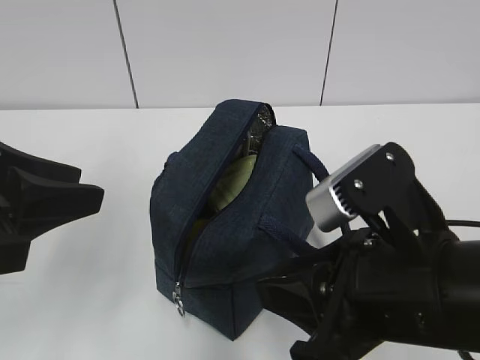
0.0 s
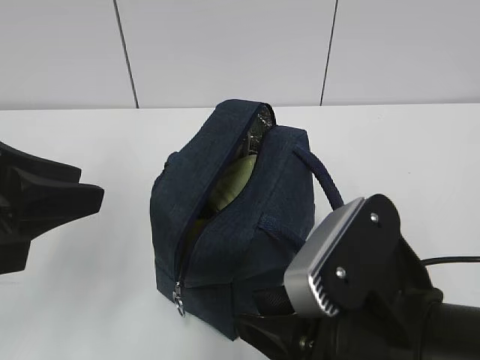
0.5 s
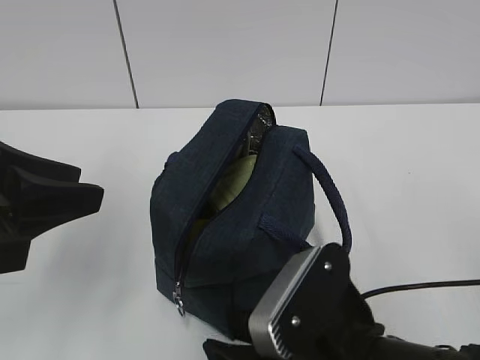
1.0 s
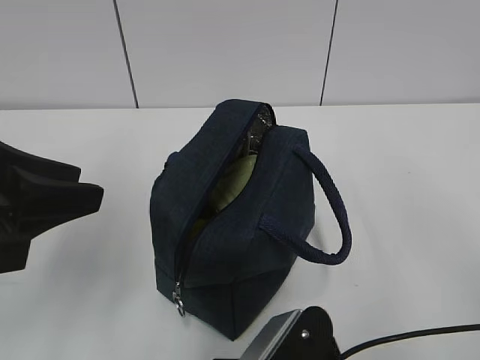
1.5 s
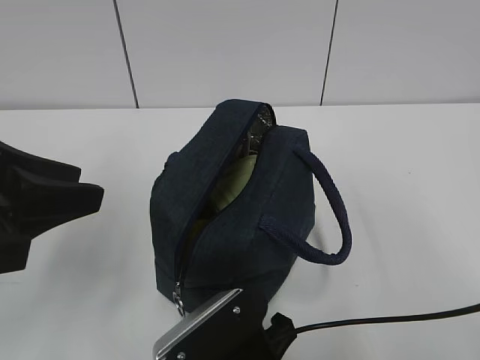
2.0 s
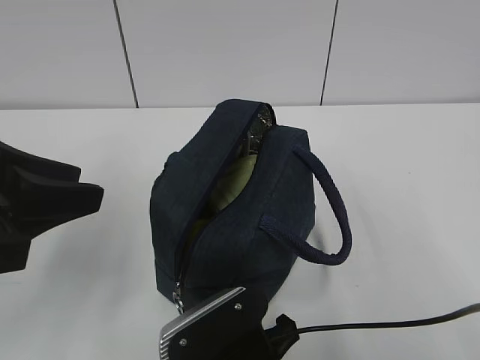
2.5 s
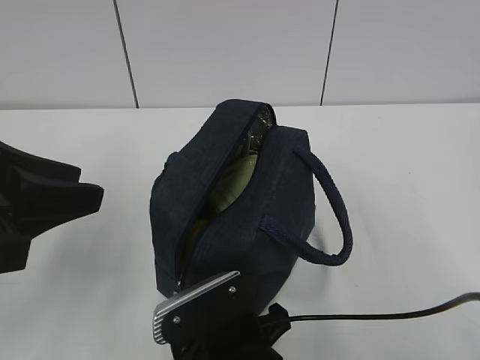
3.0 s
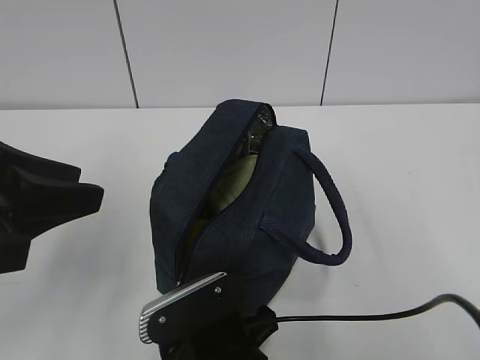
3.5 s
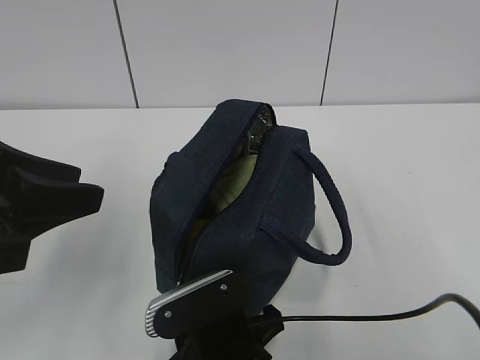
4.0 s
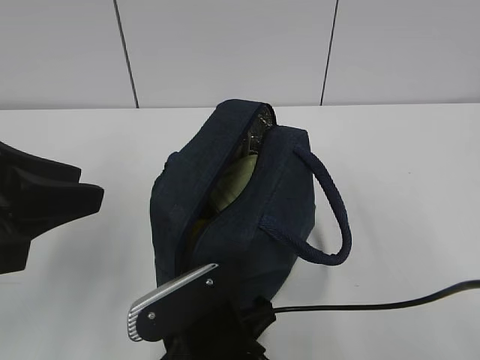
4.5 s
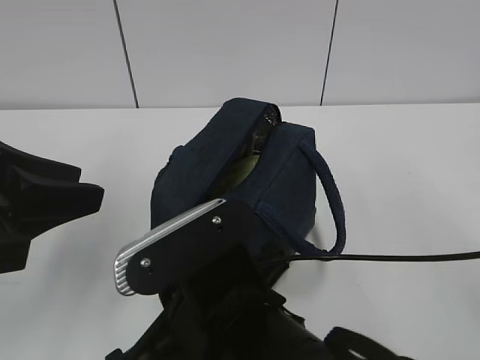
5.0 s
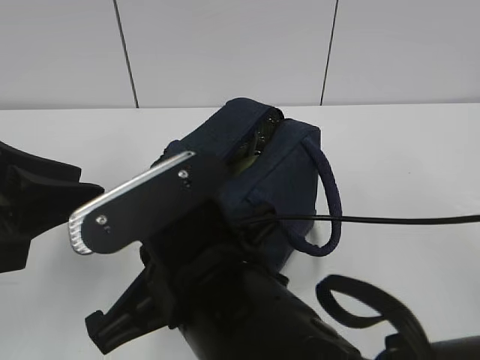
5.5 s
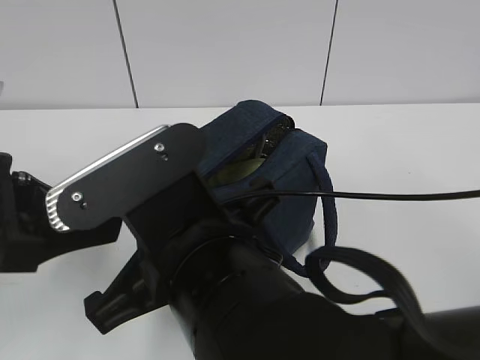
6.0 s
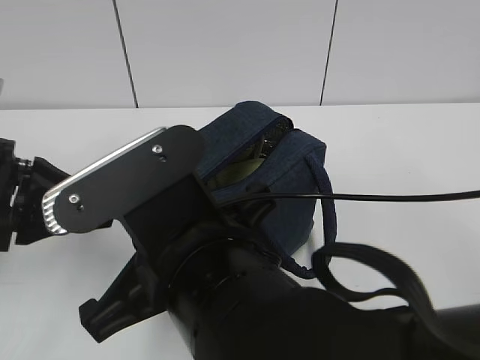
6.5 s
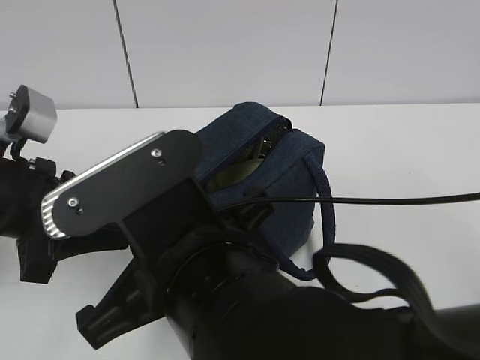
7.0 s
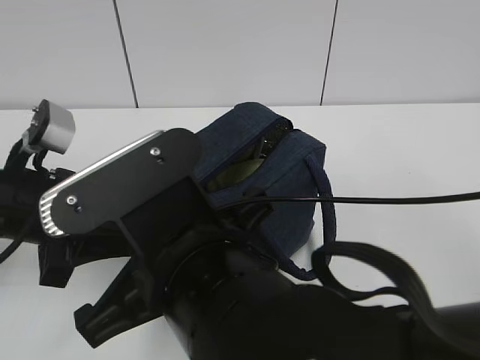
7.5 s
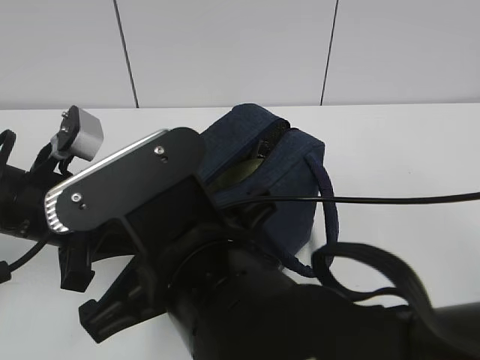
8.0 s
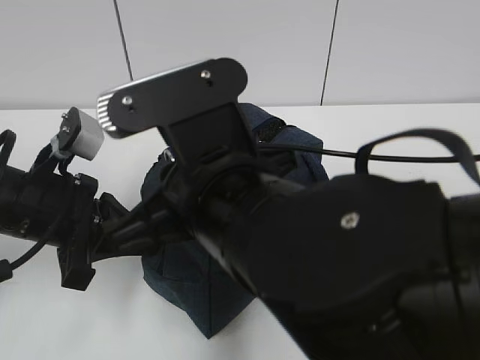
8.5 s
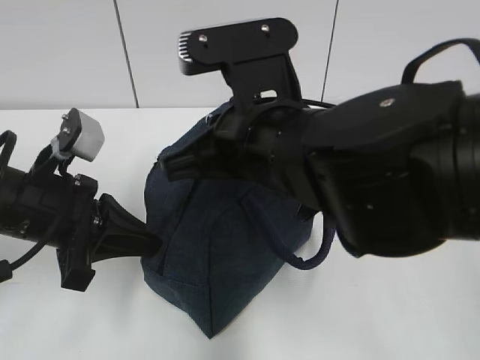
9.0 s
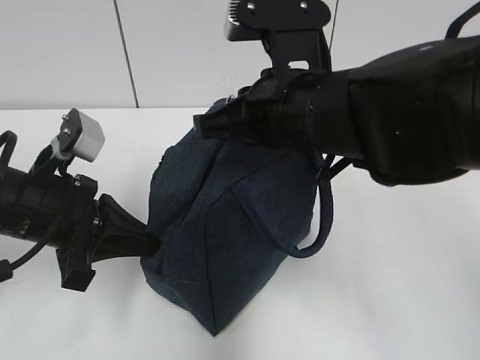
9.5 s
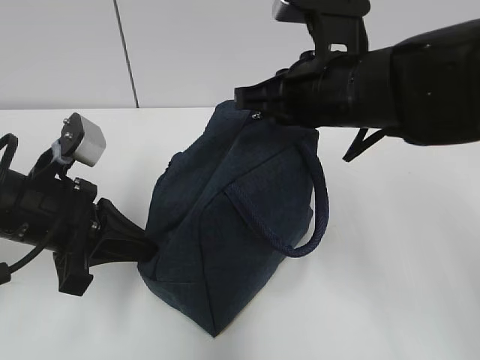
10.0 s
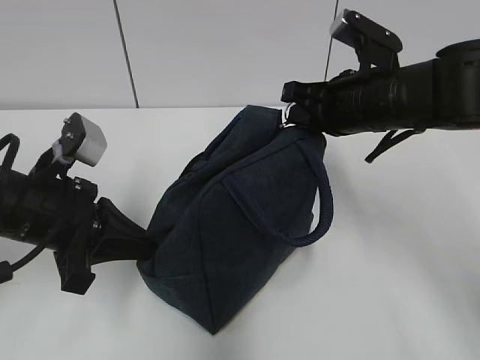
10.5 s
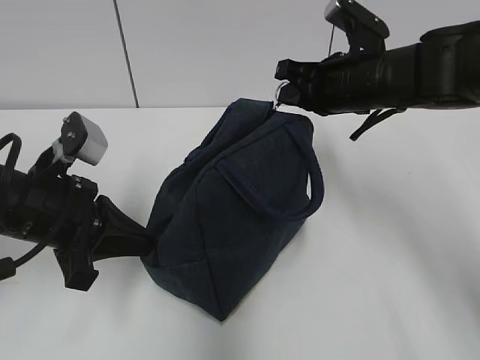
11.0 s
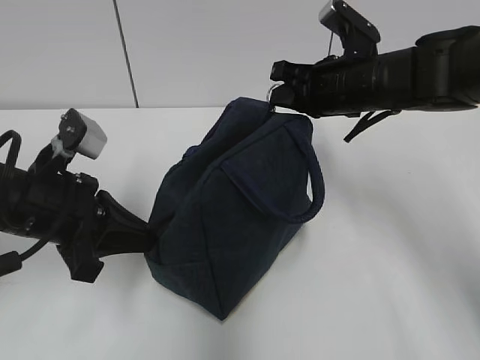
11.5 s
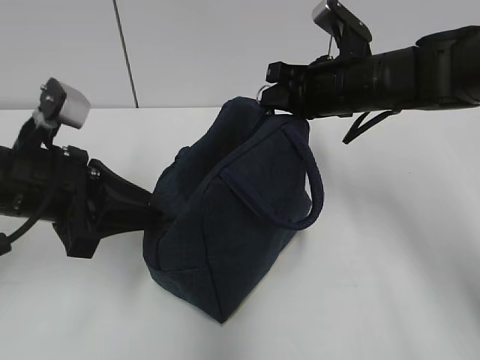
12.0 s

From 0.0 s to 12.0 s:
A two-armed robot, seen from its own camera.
Step, from 0.0 s to 7.5 s: Grab the lunch bag with your left hand.
From 0.0 s to 2.0 s: The right gripper shifts approximately 15 cm downward and to the left.
From 2.0 s to 4.0 s: The grippers move only a little.
From 4.0 s to 6.0 s: The right gripper moves upward, about 15 cm.
From 6.0 s to 8.0 s: The left gripper goes some 10 cm forward and downward, and closes up.
From 8.0 s to 10.0 s: The right gripper heads forward and to the right, covering roughly 20 cm.
From 10.0 s to 12.0 s: The left gripper opens; the right gripper travels forward by roughly 10 cm.

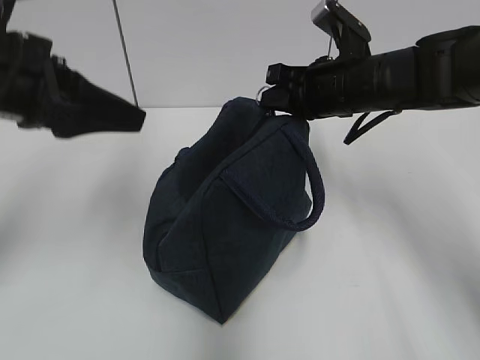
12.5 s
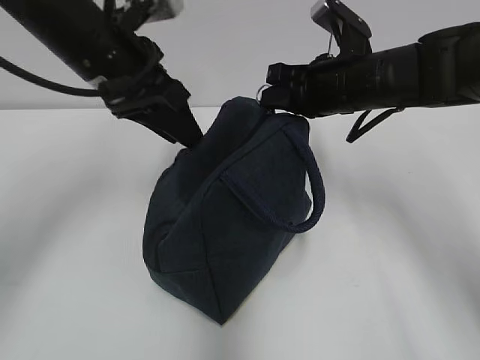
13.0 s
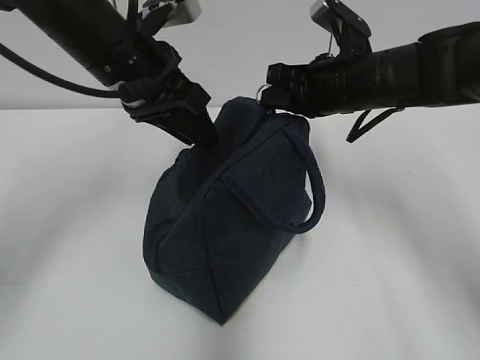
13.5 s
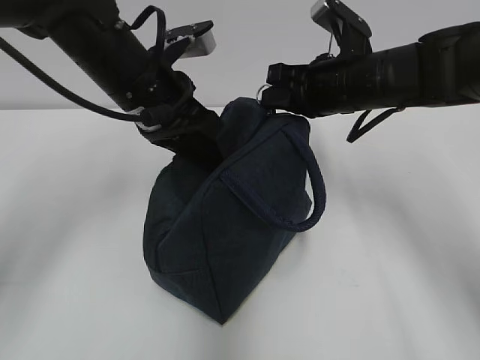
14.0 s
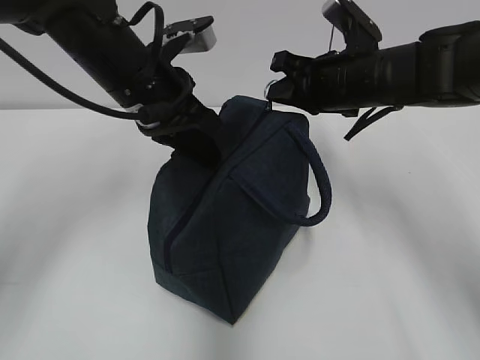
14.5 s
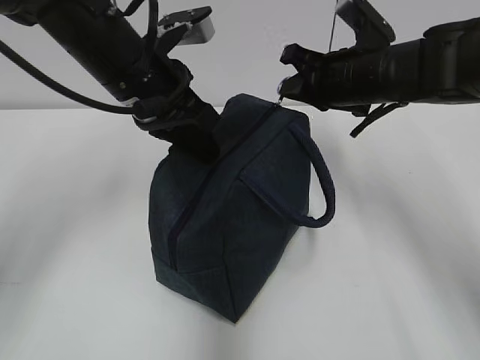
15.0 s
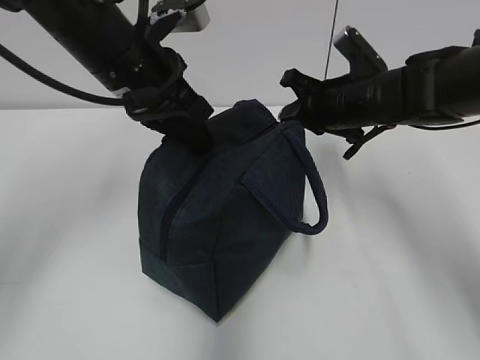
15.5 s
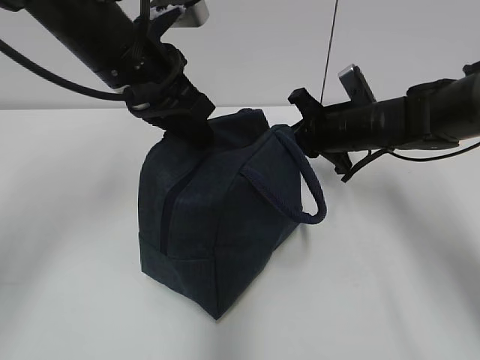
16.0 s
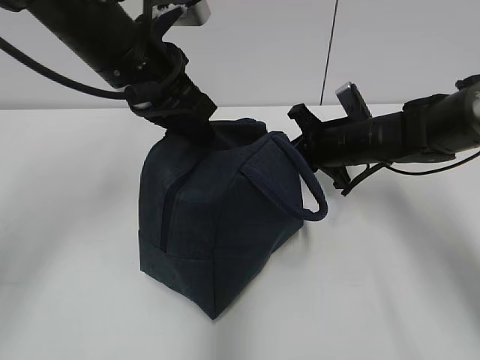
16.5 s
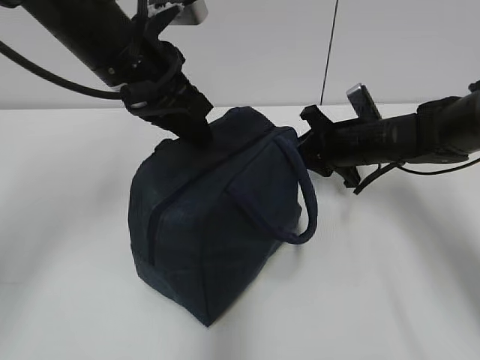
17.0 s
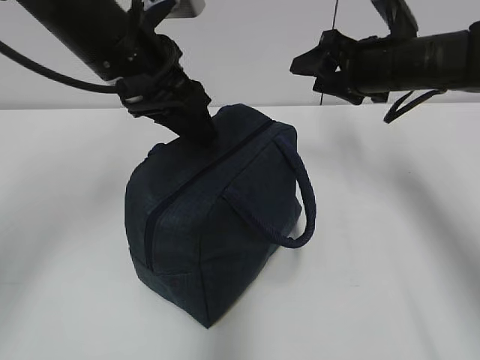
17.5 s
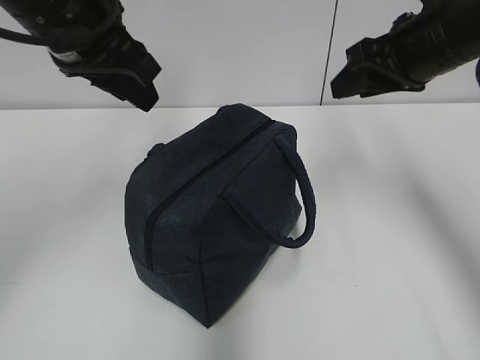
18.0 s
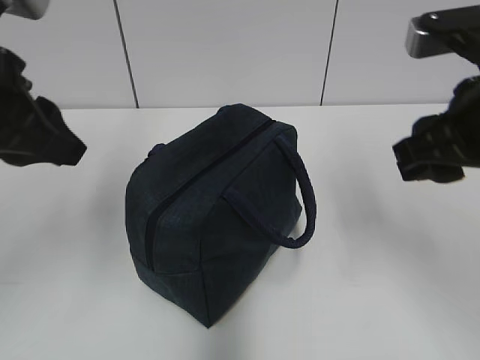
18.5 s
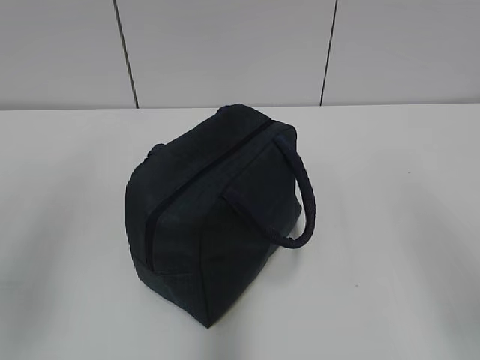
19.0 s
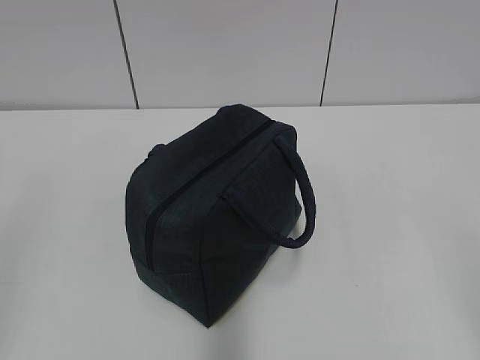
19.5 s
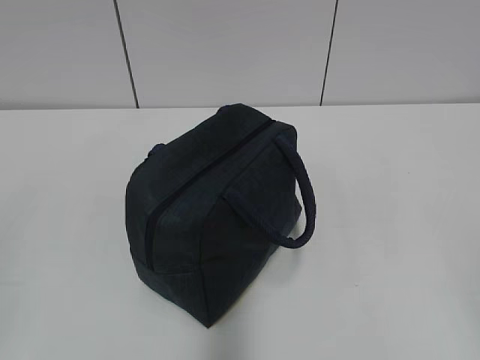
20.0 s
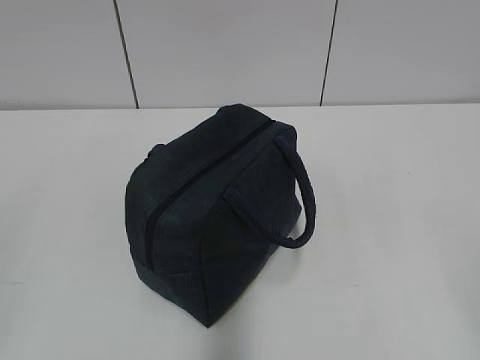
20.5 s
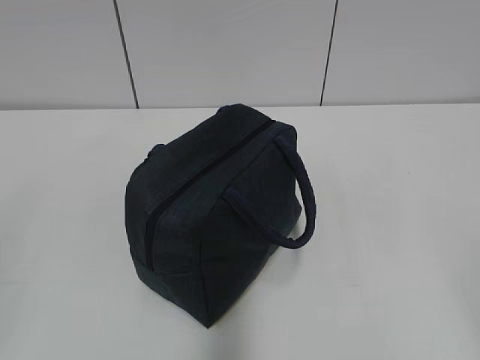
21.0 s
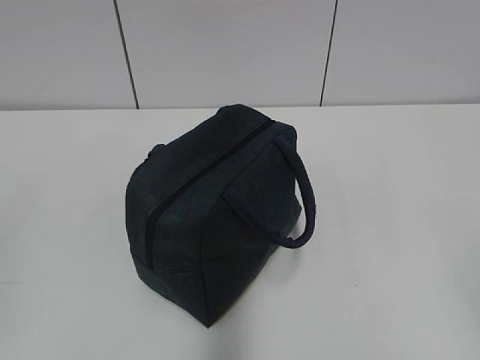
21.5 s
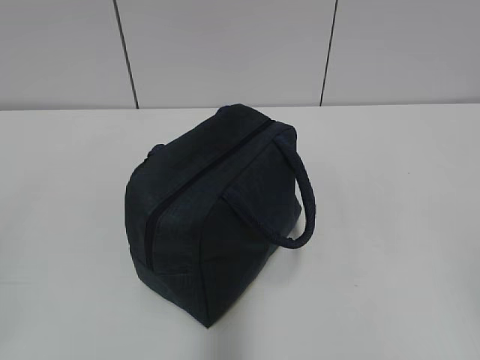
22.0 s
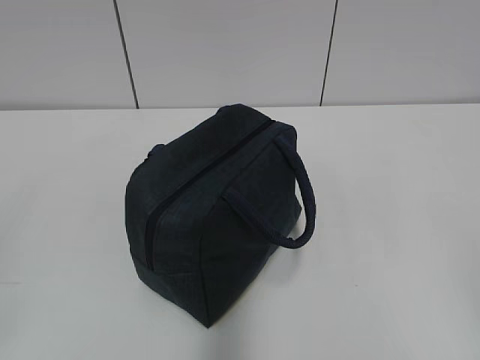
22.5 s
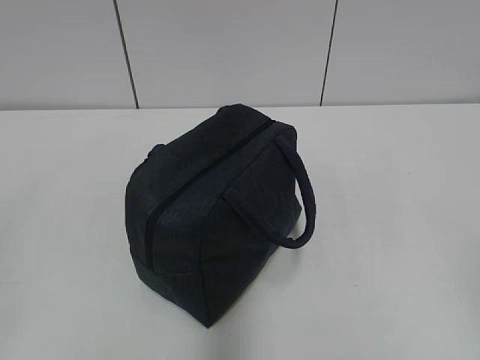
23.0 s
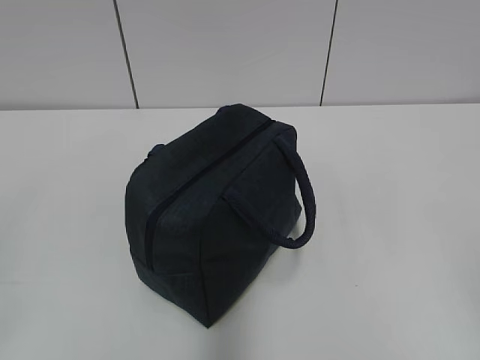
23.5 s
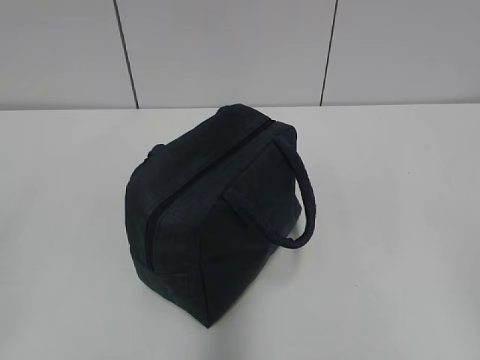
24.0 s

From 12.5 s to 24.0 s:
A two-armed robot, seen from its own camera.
Step, from 12.5 s to 16.5 s: Pull the zipper with your right hand.
From 12.5 s to 14.5 s: The left gripper travels to the right and forward by about 15 cm, and closes up.
From 14.5 s to 16.5 s: The right gripper shifts approximately 10 cm downward.
From 16.5 s to 18.5 s: The right gripper goes some 25 cm backward and upward, and opens its fingers. Meanwhile the left gripper moves backward and to the left, approximately 15 cm, and opens up.
From 18.5 s to 20.0 s: The left gripper shifts about 25 cm backward and to the left, while the right gripper travels backward and to the right by some 25 cm.
From 22.0 s to 24.0 s: The two grippers keep their place.

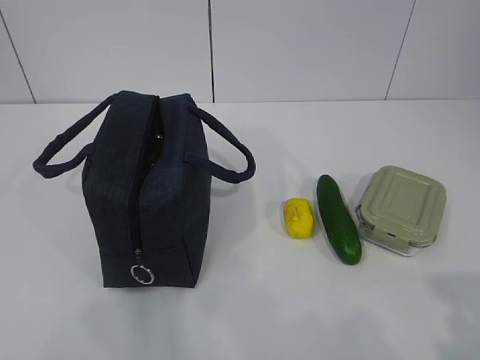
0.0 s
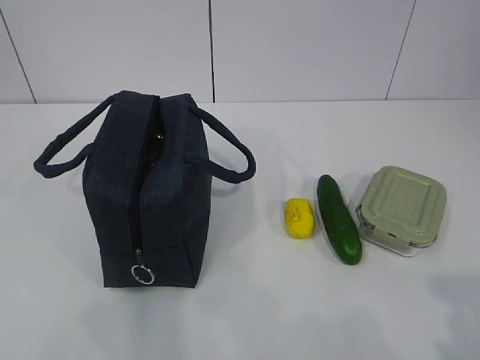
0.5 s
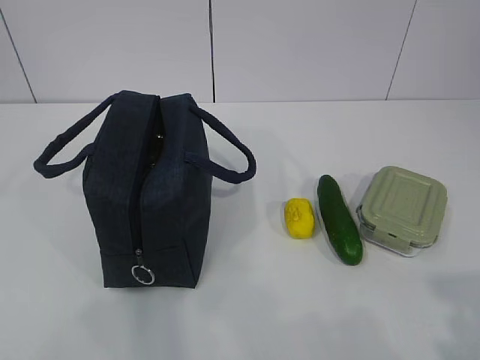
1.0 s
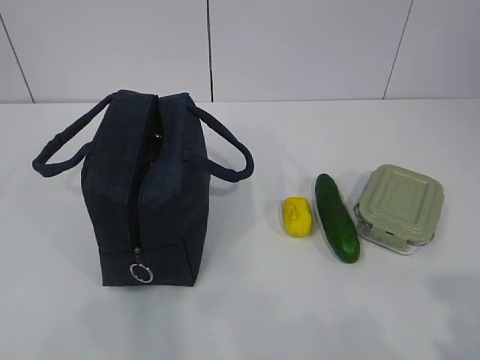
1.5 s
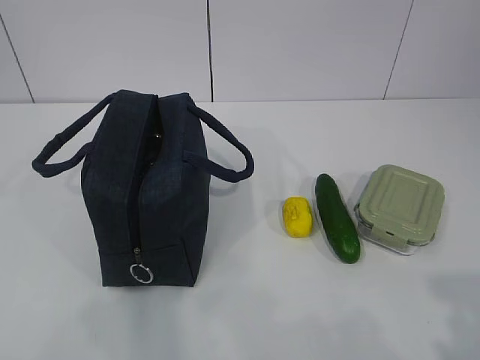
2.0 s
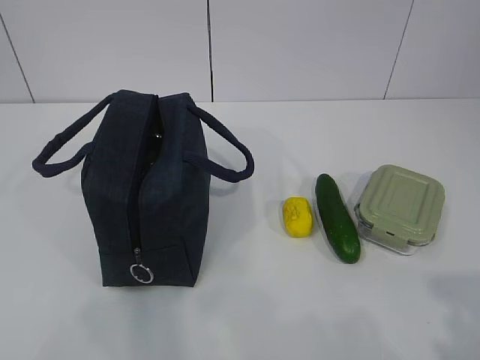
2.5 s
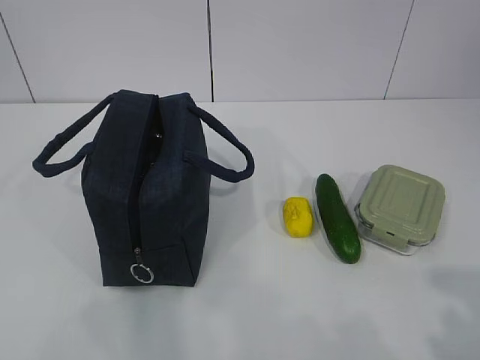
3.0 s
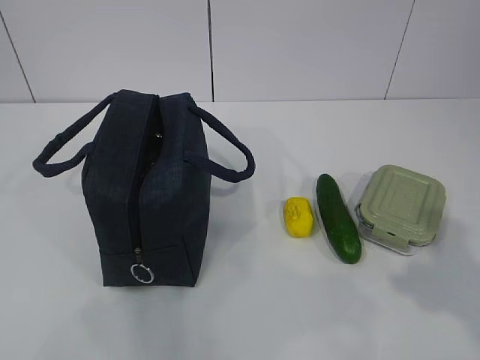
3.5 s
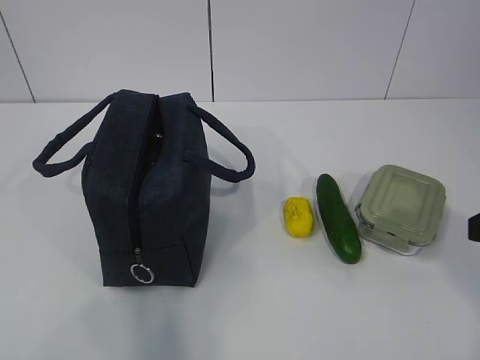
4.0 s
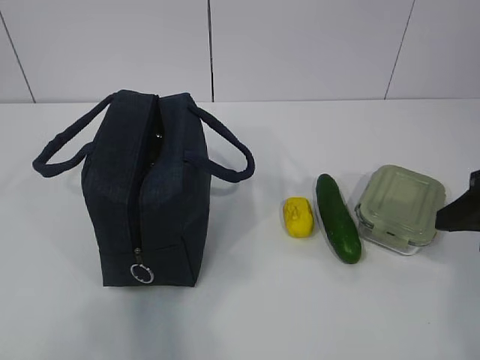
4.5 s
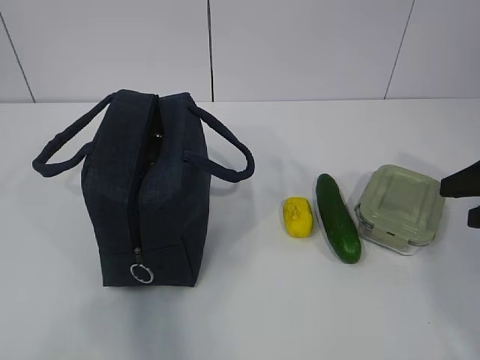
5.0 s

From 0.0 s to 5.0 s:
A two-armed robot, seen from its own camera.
From 2.5 s to 5.0 s: The right gripper goes some 25 cm forward.
